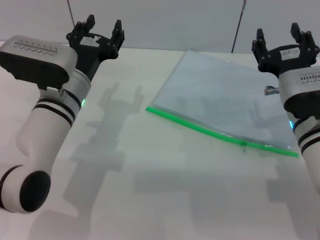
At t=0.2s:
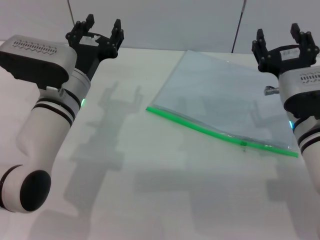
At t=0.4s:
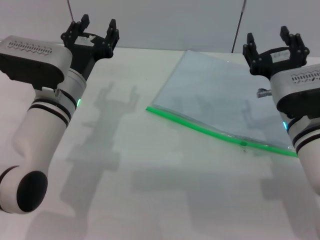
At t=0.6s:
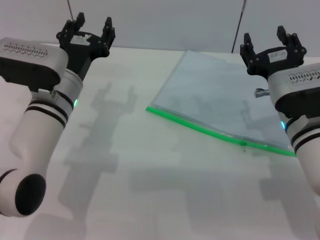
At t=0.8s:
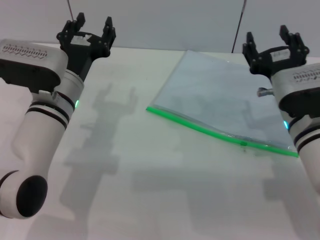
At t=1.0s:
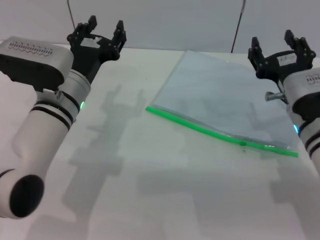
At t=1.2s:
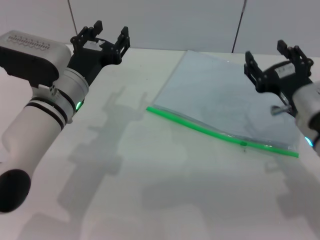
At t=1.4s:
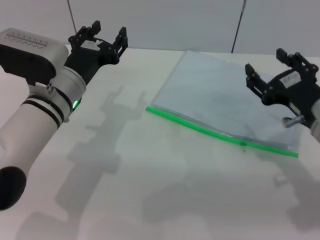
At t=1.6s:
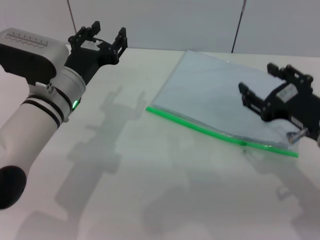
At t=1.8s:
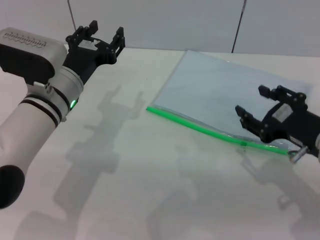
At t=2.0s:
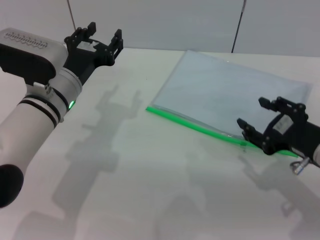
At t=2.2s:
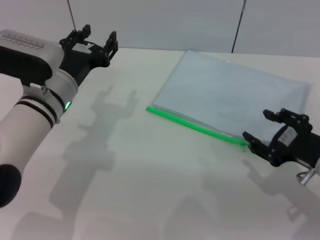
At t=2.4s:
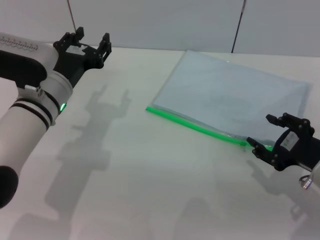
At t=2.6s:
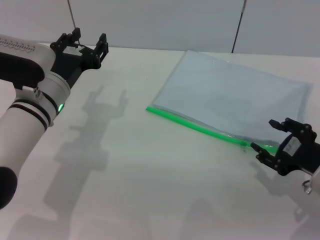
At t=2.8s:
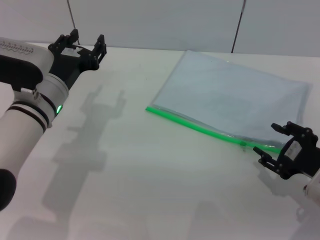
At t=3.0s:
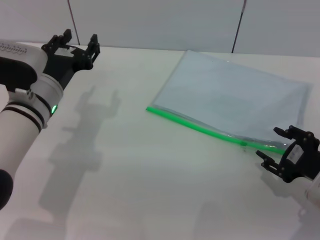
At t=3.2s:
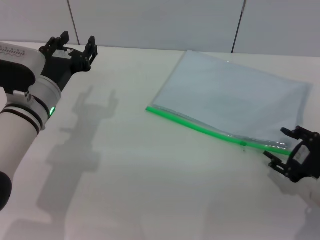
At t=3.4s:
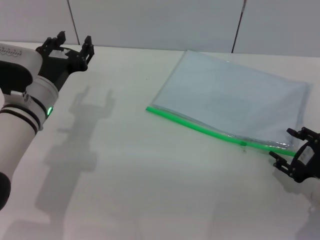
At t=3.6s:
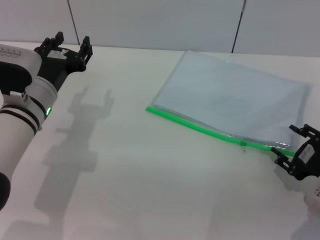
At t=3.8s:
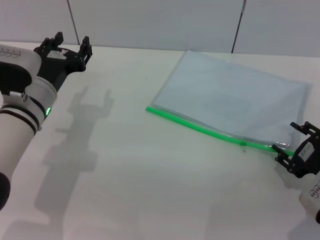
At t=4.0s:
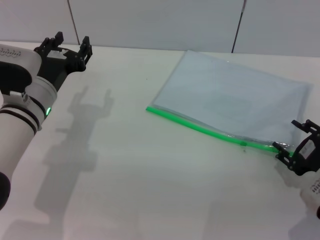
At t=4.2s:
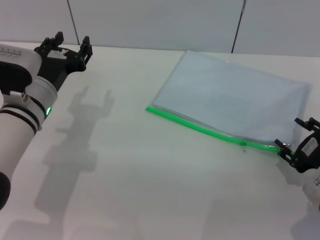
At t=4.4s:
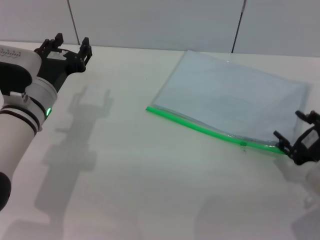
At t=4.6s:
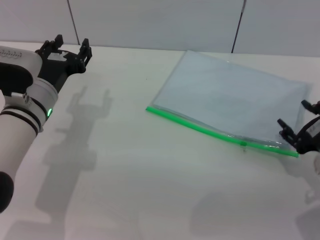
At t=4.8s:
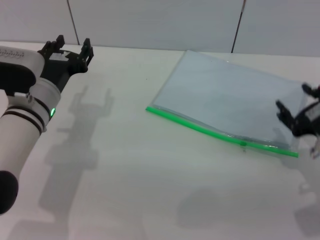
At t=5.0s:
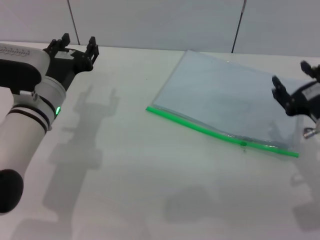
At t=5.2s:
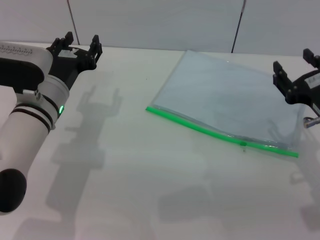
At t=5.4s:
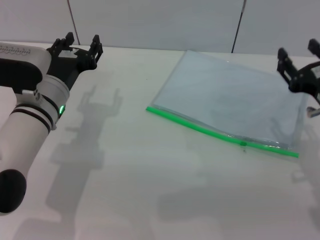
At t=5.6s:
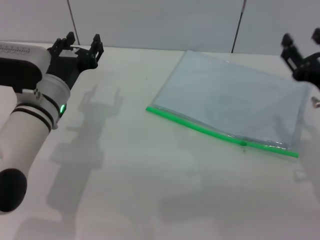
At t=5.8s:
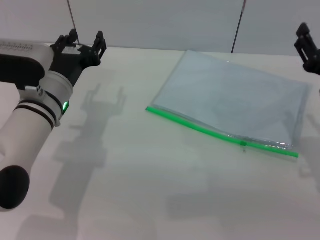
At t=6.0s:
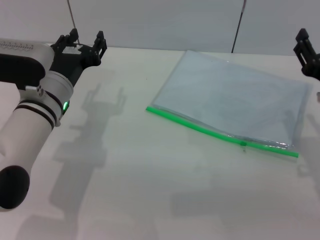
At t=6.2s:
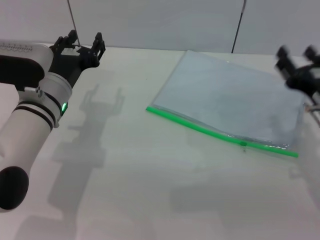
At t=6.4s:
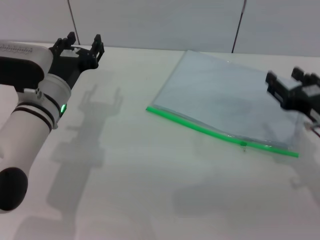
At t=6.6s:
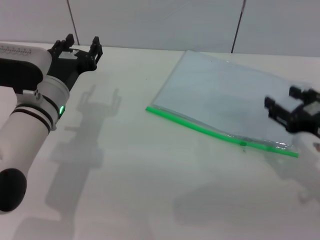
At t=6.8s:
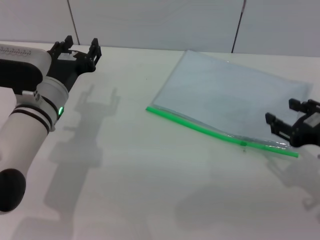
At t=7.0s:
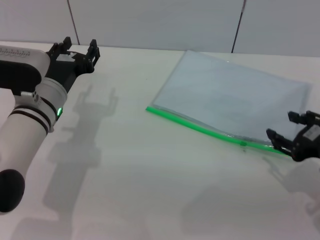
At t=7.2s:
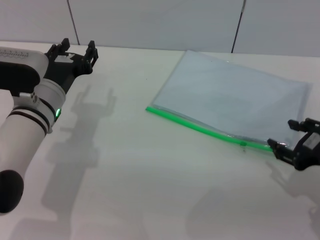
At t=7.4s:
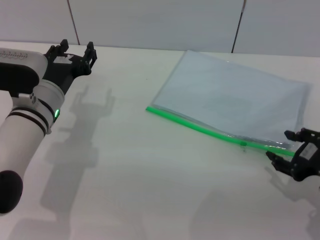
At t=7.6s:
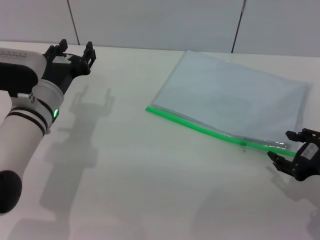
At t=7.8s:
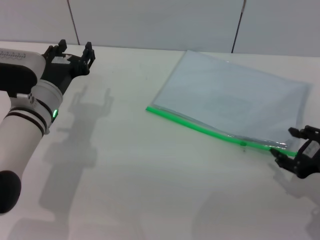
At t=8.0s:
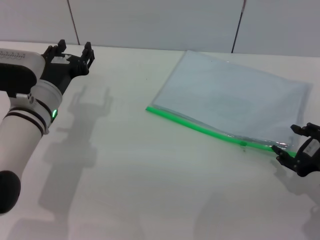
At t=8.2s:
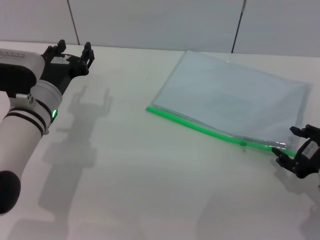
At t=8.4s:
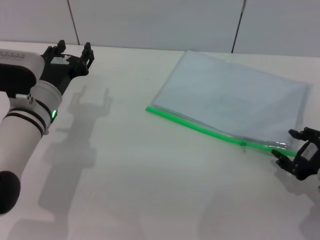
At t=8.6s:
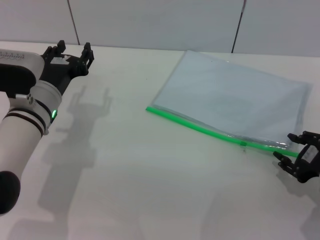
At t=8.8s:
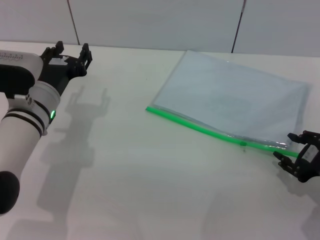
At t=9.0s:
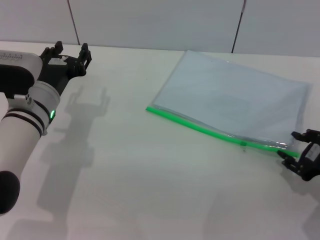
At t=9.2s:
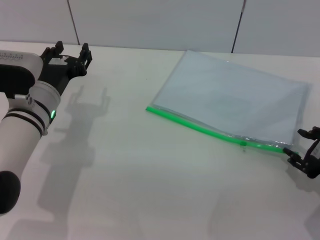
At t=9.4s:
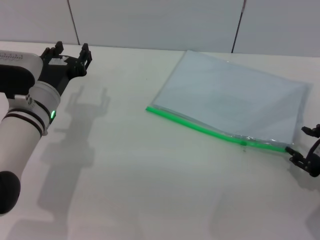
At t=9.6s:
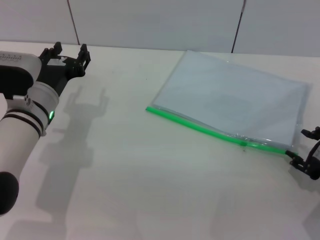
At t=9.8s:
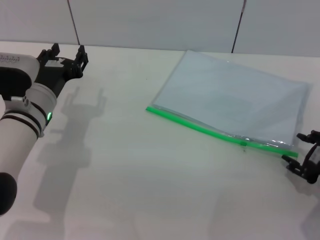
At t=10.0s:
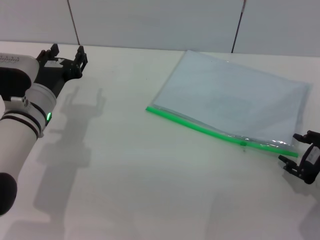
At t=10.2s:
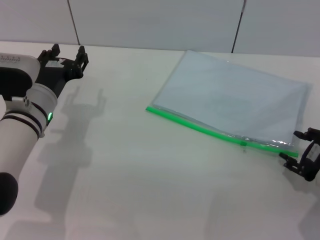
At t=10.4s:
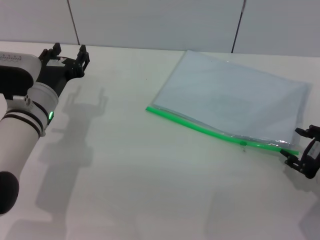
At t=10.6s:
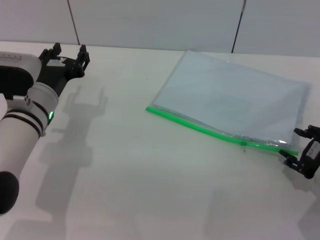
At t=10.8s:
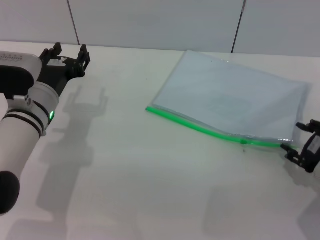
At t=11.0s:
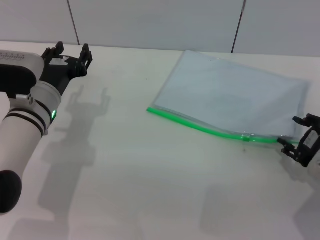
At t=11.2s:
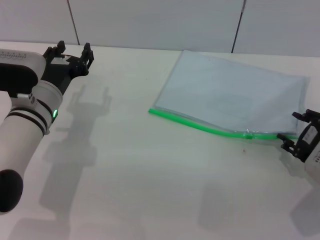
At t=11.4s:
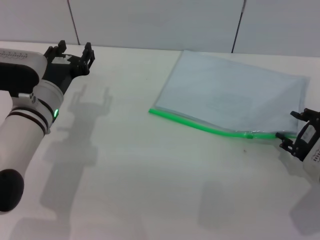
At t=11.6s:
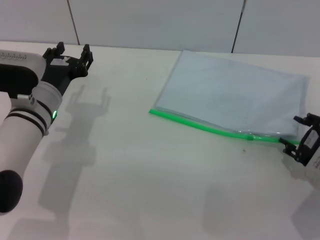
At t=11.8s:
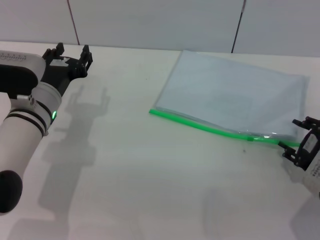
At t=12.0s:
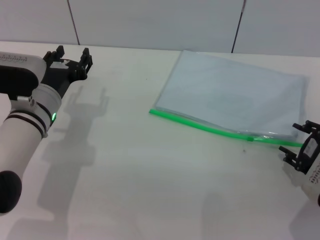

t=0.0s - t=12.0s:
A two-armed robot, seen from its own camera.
t=0.0s - t=1.6s: The right gripper shifts by about 5 cm.
t=1.6s - t=3.0s: The right gripper moves downward, roughly 5 cm.
t=3.0s - t=4.4s: There are only small adjustments of the grippers.
t=4.4s - t=6.0s: The right gripper moves about 5 cm.
t=6.0s - t=7.6s: The right gripper changes place by some 5 cm.
t=7.6s - t=10.4s: There are only small adjustments of the grippers.
t=10.4s - t=12.0s: The grippers make only small movements.

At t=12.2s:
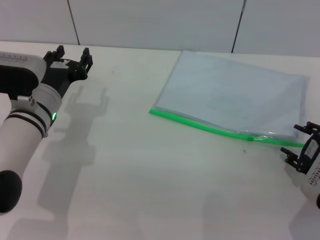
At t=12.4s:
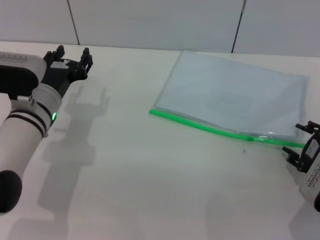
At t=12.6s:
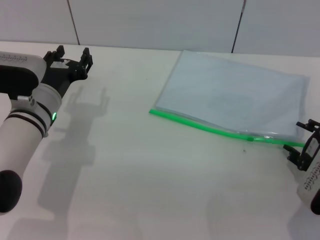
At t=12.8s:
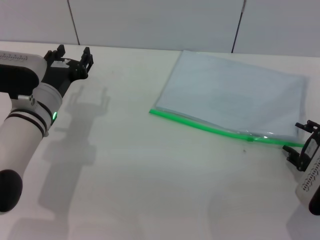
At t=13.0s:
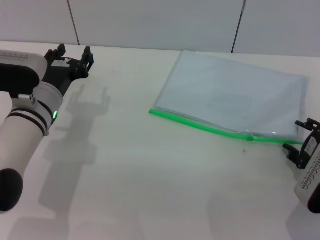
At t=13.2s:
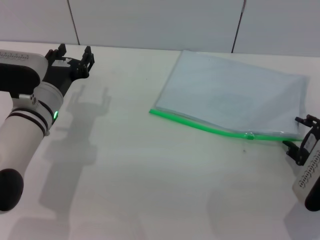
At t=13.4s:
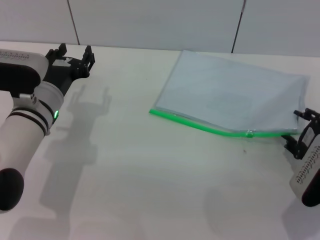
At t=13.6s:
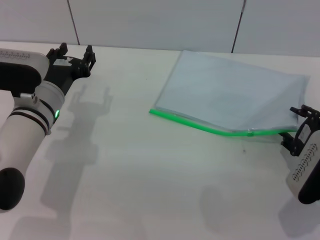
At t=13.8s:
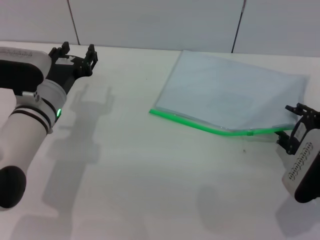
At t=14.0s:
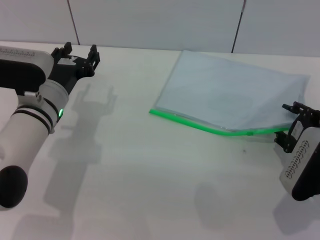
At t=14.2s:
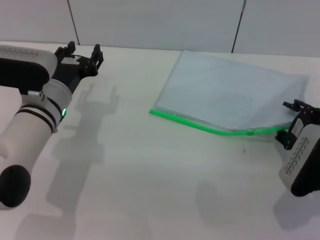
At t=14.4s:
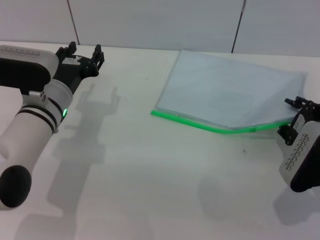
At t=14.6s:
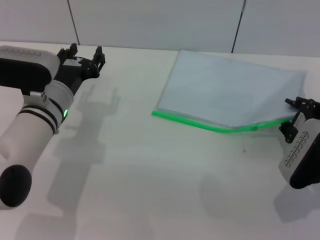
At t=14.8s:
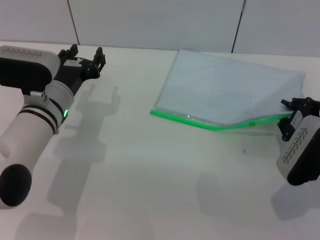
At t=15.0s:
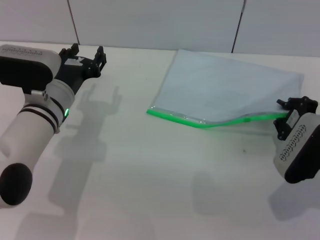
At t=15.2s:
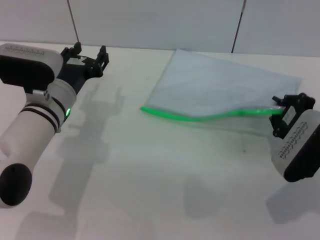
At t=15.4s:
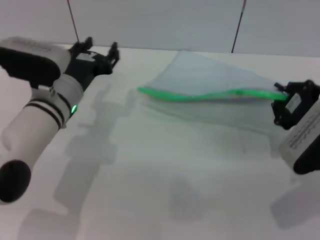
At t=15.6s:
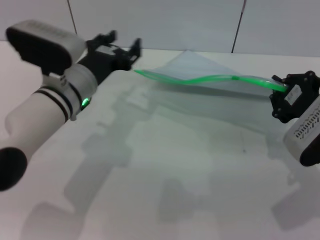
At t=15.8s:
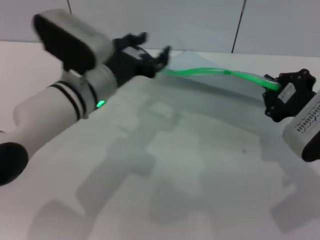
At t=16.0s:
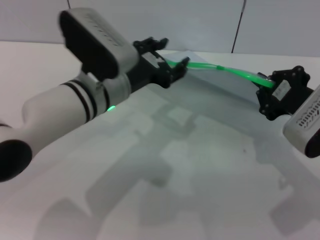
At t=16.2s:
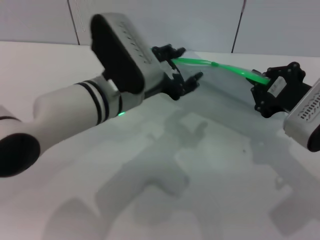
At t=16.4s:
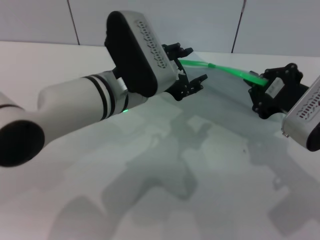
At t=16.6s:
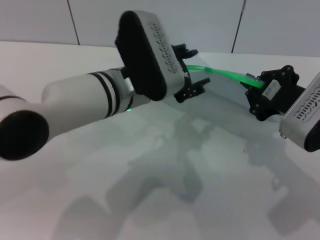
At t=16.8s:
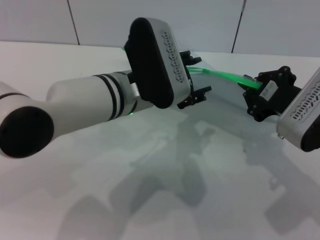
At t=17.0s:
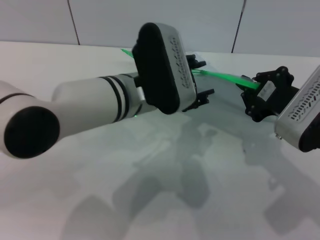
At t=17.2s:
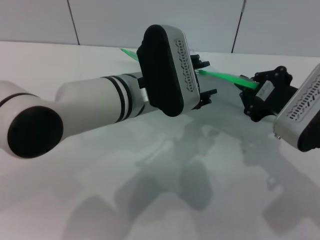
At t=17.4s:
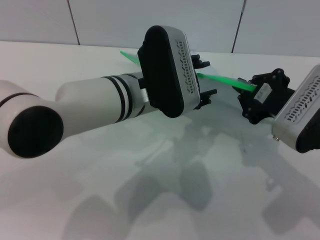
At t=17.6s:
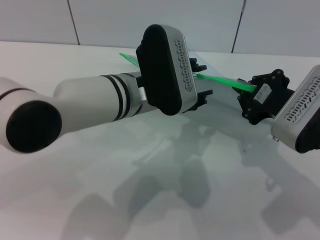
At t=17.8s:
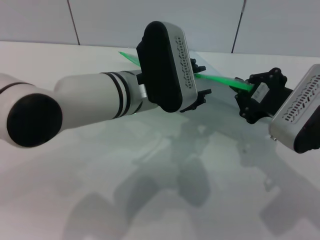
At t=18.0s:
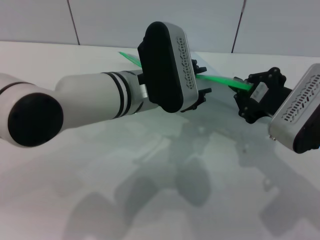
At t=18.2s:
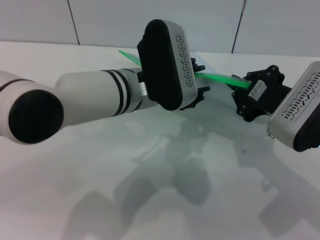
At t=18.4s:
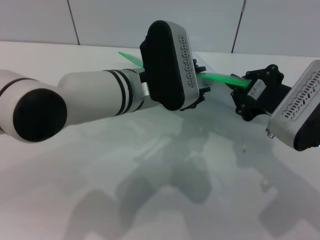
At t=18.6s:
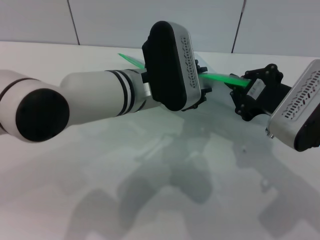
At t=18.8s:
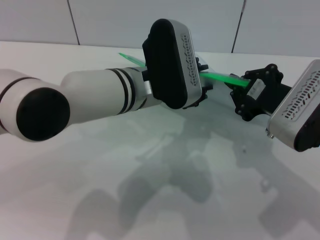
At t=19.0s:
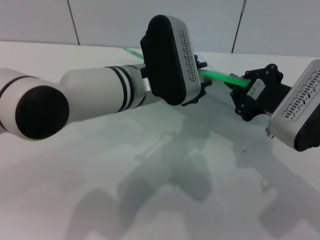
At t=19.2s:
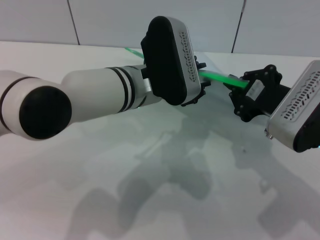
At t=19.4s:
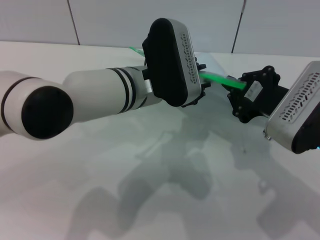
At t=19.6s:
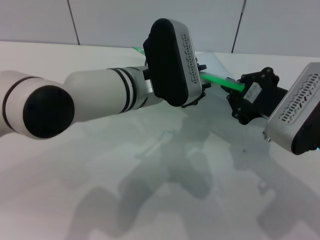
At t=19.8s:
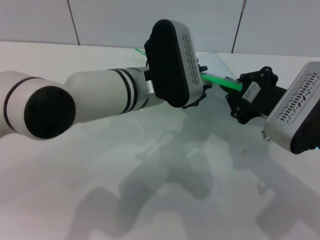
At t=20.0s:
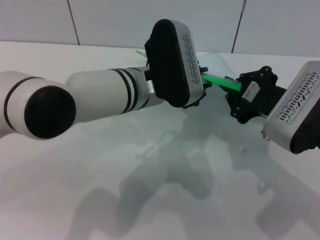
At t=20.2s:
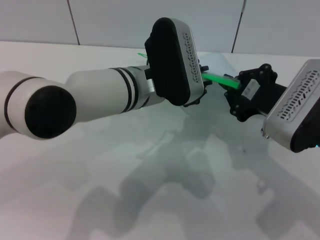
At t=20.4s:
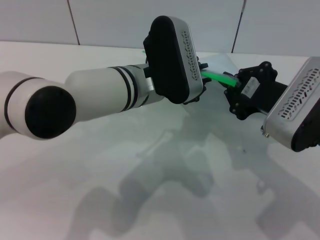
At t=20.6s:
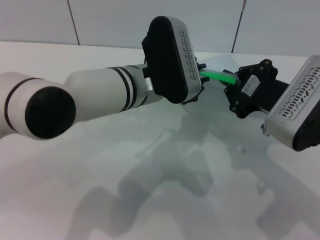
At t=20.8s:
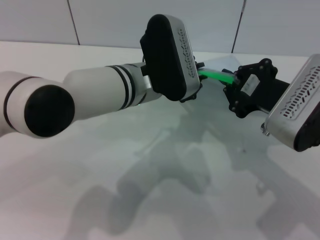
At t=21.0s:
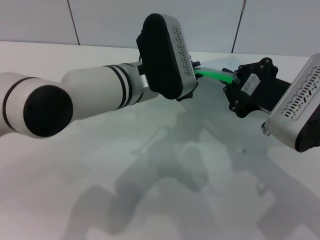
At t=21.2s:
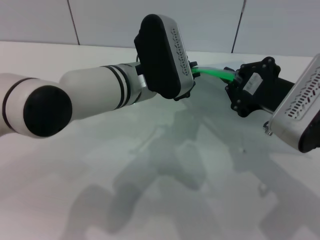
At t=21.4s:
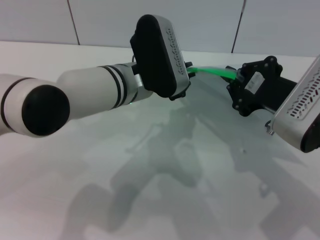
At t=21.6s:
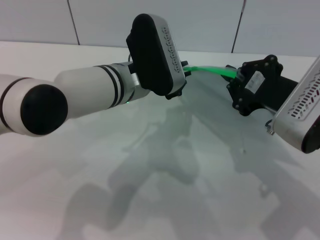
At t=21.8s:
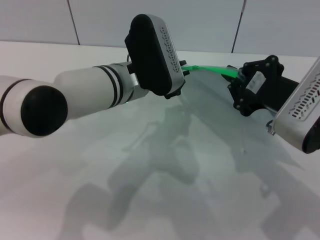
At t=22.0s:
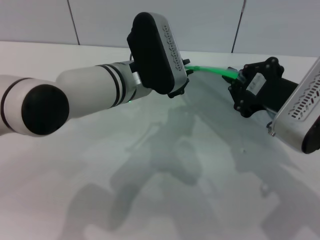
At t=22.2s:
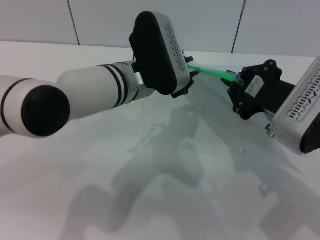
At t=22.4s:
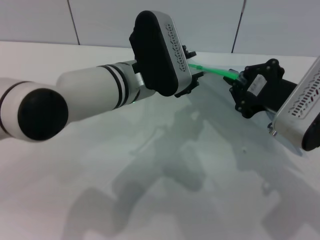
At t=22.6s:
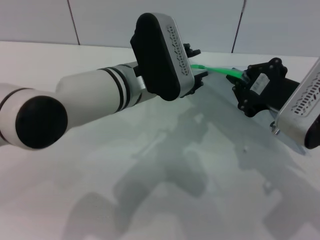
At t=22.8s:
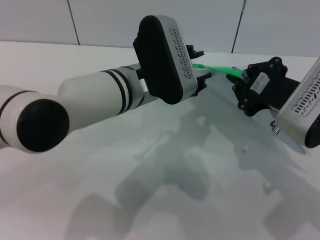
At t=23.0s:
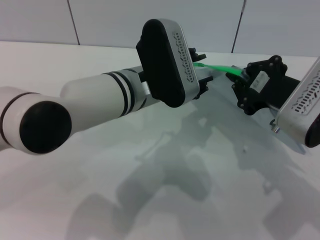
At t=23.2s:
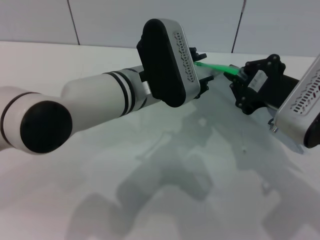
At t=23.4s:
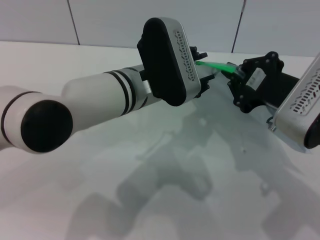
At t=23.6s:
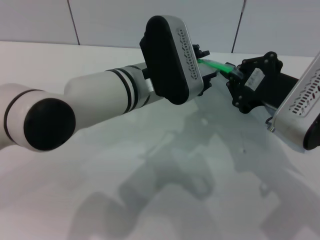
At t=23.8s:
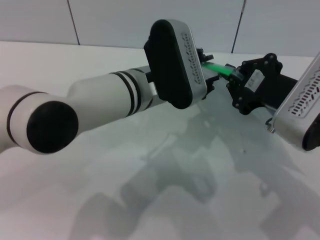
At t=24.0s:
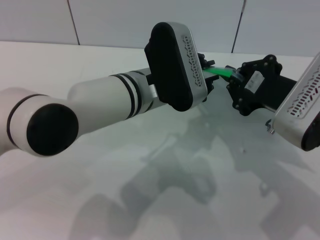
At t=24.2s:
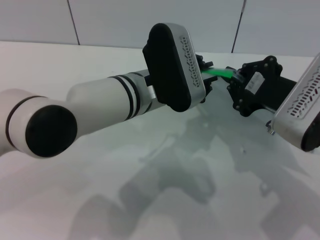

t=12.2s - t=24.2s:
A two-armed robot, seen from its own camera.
Step, t=12.2s - t=15.4s: Pick up the transparent plastic bag with the right gripper.
t=12.2s - t=13.8s: The grippers make only small movements.
t=13.8s - t=15.2s: The right gripper closes its fingers.
t=15.2s - t=16.6s: The left gripper is displaced to the right and upward by some 15 cm, while the right gripper shifts roughly 10 cm upward.
t=16.6s - t=18.2s: The grippers make only small movements.
t=18.2s - t=19.8s: Both grippers stay put.
t=19.8s - t=21.2s: The grippers make only small movements.
t=21.2s - t=22.6s: Both grippers stay about where they are.
t=22.6s - t=24.2s: The grippers stay close to where they were, moving slightly.
